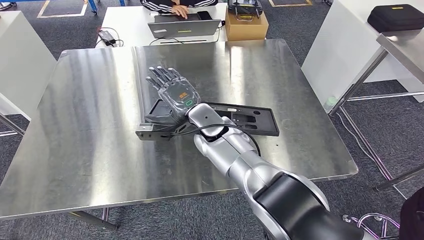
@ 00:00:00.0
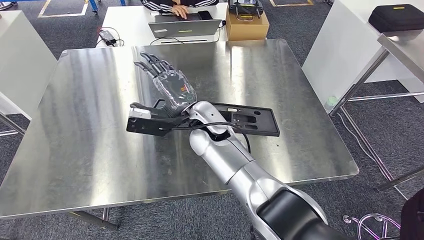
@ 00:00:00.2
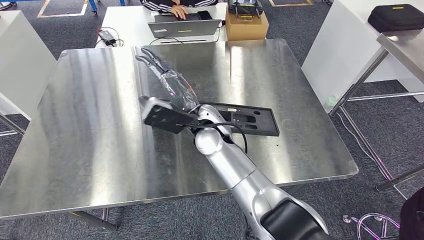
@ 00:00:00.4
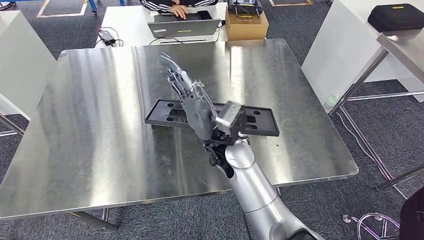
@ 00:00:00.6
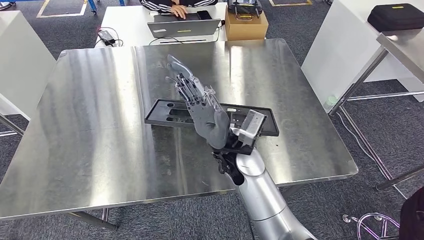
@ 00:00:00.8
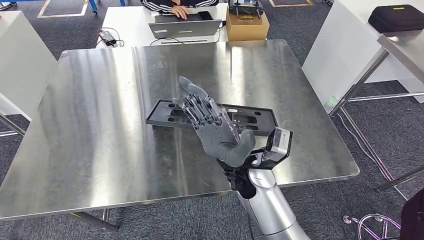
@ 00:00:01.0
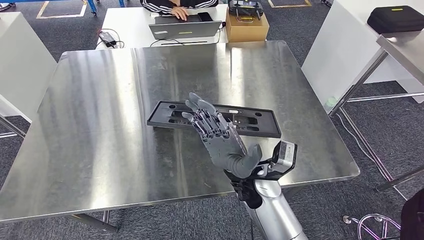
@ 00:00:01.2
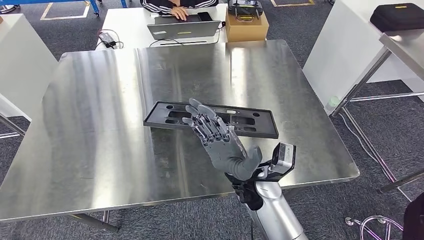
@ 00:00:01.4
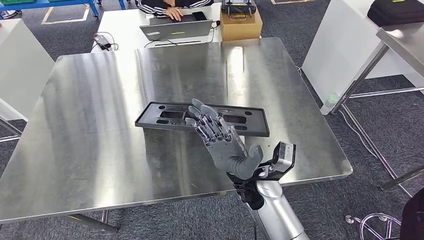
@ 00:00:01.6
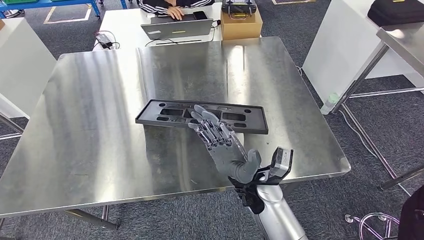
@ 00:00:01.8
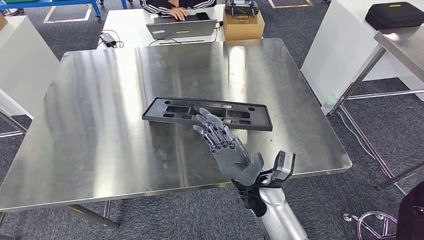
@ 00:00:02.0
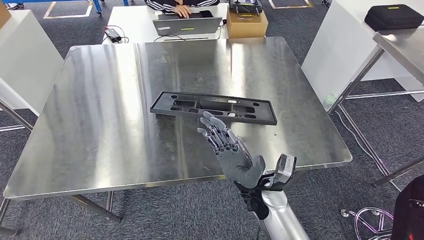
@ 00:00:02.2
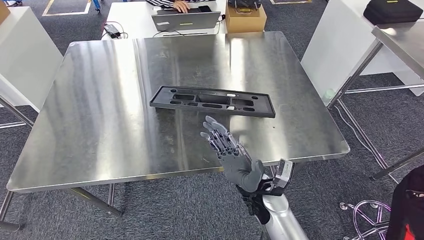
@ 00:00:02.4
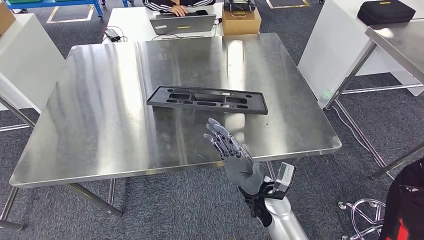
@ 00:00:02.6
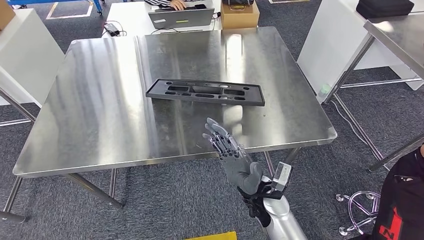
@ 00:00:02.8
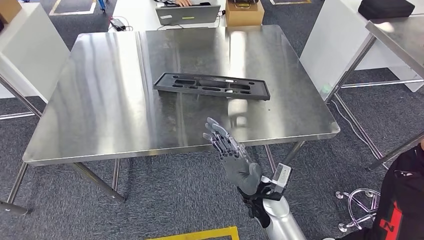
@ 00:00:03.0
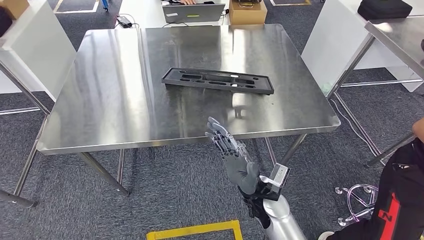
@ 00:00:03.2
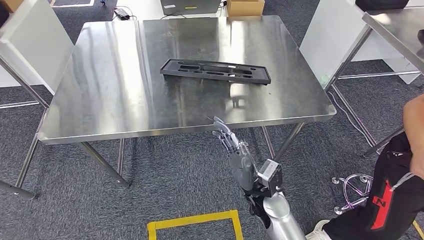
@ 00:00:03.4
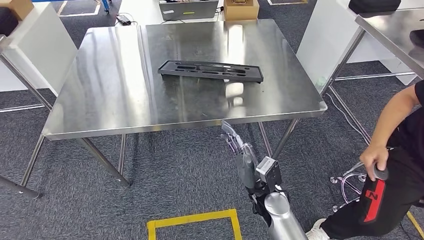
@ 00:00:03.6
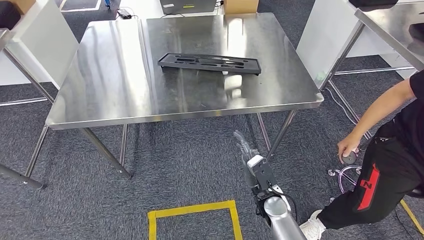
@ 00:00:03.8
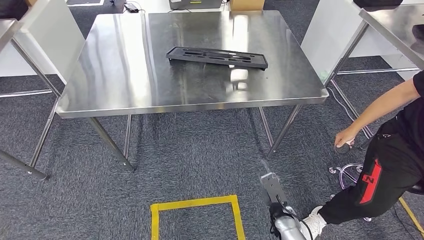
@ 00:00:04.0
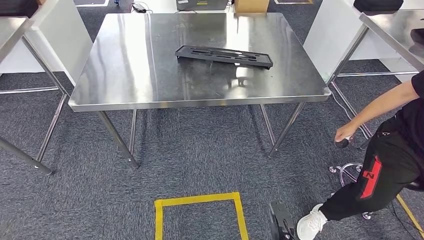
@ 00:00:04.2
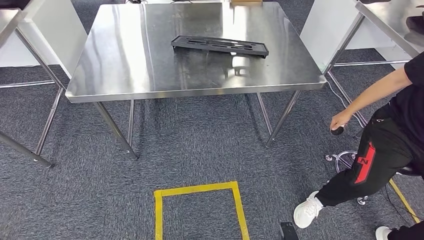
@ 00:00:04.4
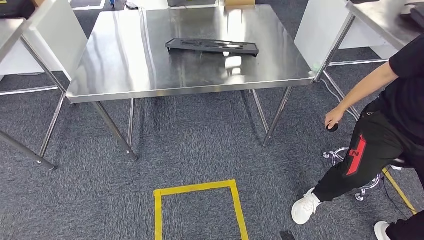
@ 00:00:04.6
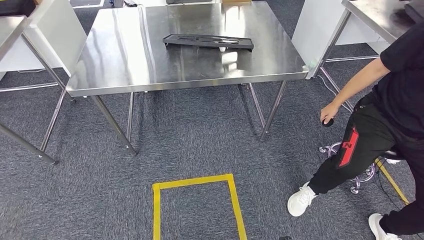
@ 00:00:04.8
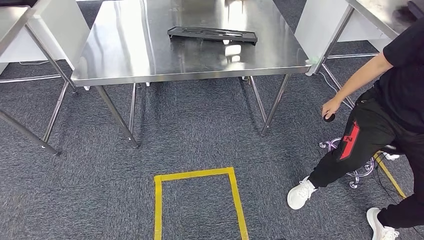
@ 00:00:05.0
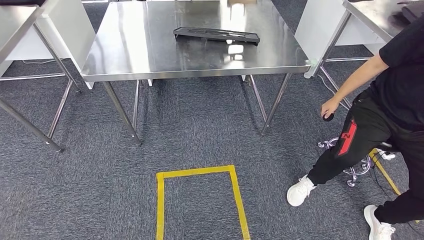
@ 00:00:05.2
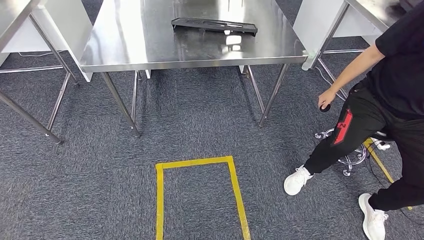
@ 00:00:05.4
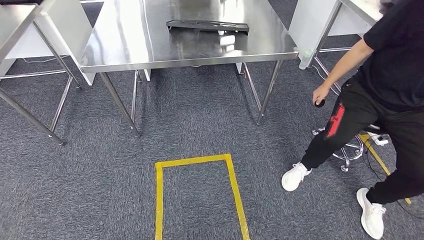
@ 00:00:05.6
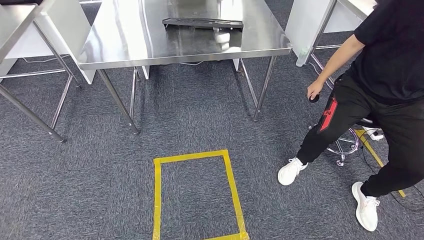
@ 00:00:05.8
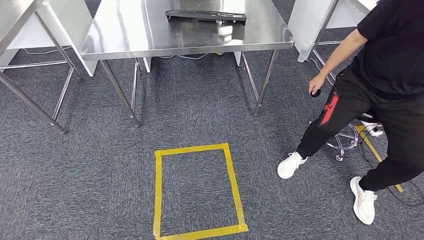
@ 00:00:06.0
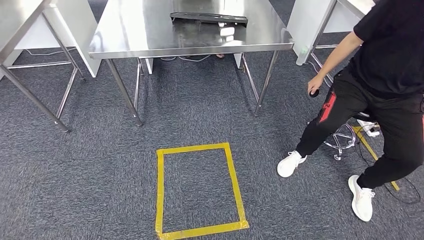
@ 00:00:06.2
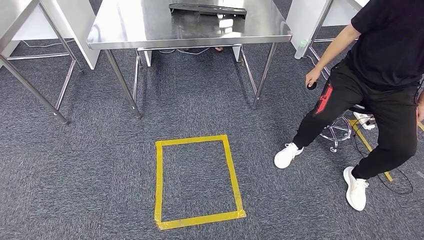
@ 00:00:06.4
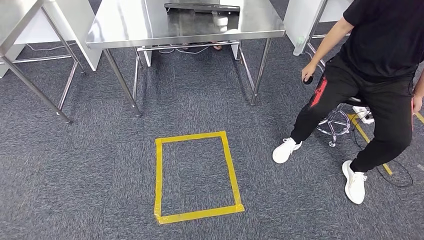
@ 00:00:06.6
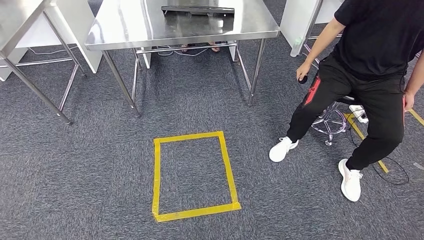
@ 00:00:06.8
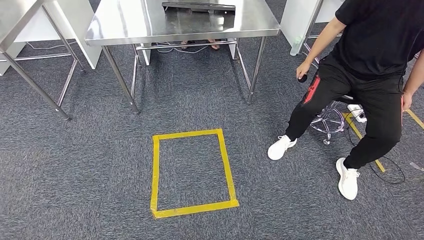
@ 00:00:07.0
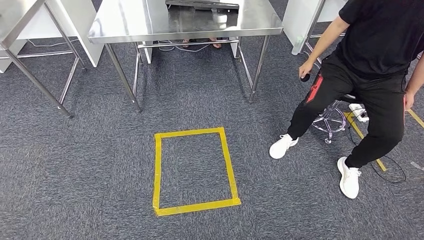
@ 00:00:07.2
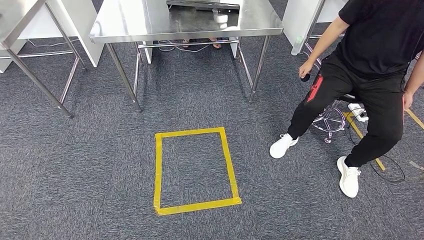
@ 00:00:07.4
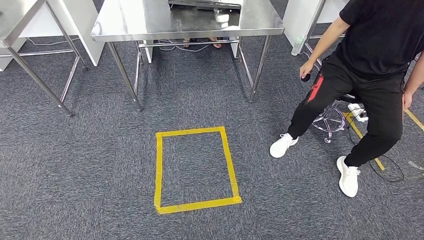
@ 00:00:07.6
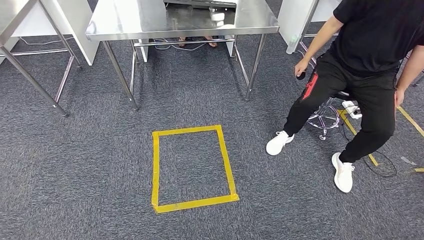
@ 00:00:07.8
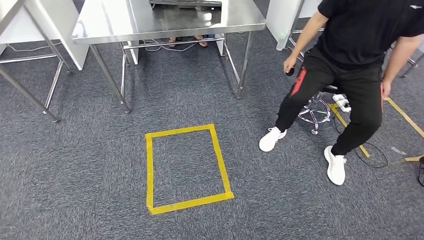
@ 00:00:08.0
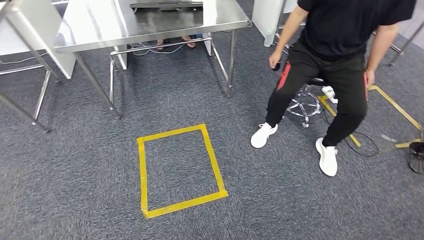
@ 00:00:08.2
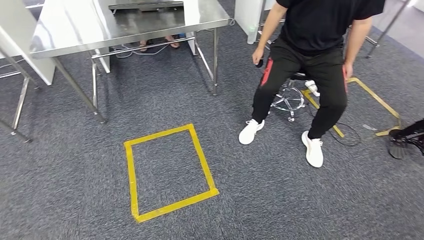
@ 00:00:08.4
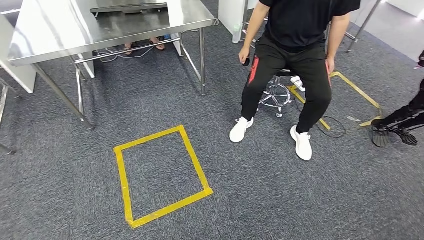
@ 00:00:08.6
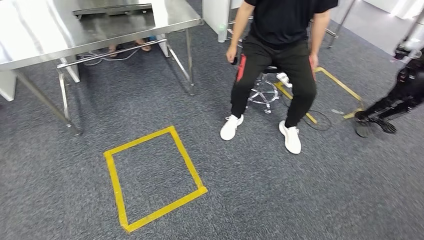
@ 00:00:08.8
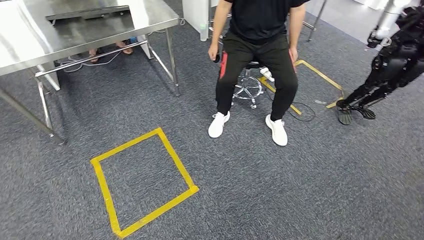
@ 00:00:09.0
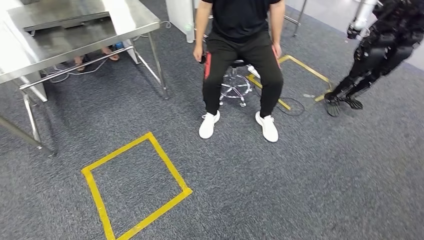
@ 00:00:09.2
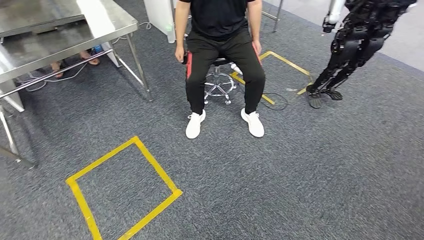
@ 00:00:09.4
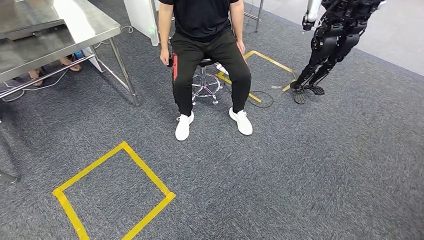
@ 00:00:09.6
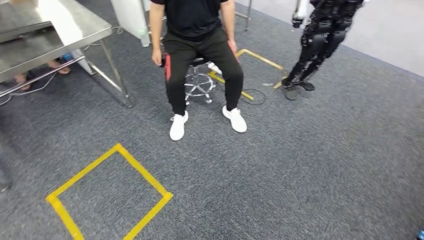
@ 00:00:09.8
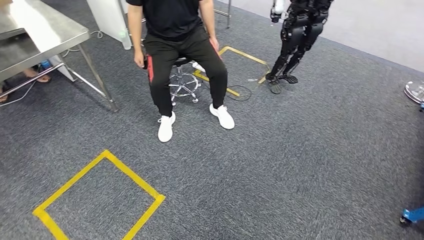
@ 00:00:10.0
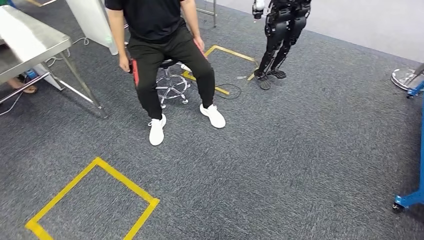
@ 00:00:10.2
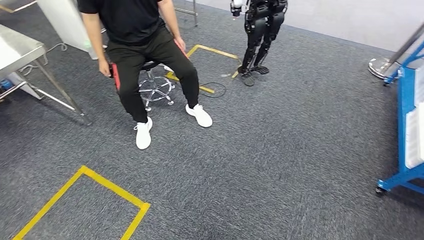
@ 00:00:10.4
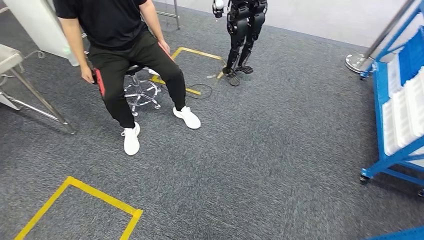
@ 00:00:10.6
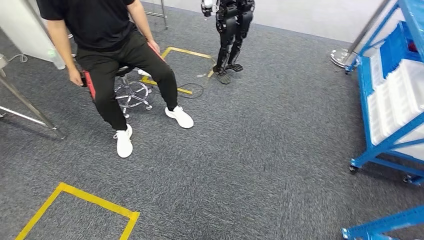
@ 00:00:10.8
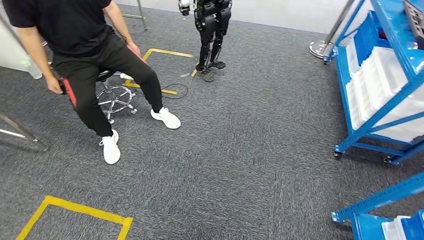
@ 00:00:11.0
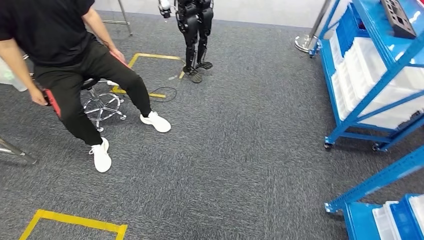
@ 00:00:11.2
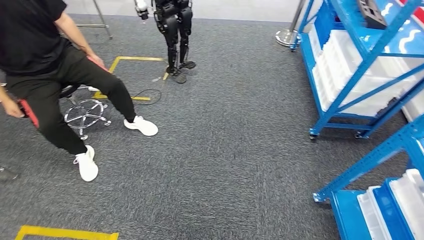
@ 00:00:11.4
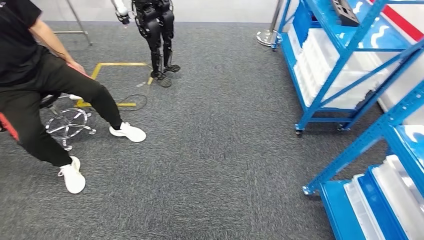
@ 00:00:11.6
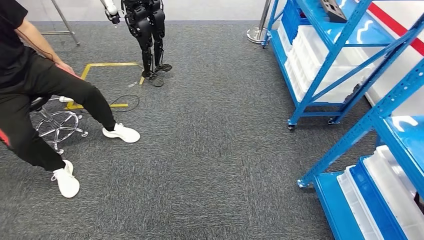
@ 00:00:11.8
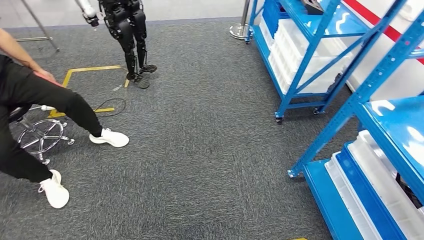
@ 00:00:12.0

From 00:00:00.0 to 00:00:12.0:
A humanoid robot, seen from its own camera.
Step, from 00:00:00.0 to 00:00:05.8: Insert the large material into the corresponding slot on the workbench.

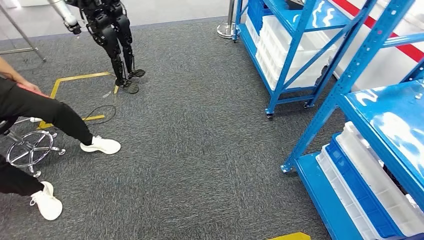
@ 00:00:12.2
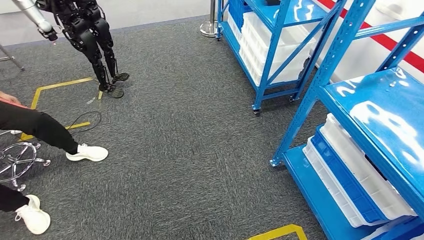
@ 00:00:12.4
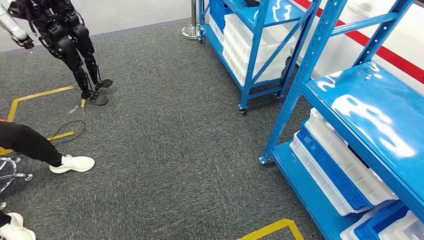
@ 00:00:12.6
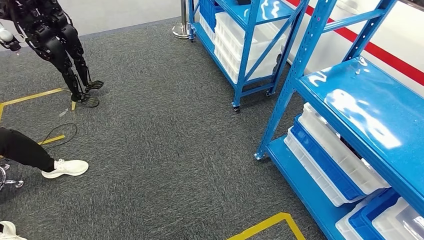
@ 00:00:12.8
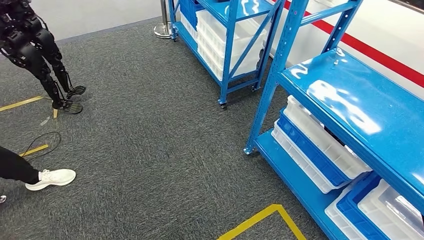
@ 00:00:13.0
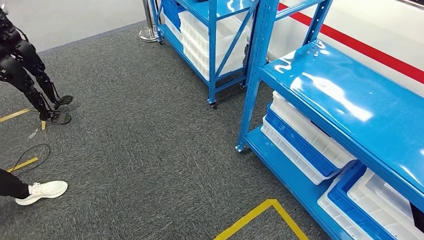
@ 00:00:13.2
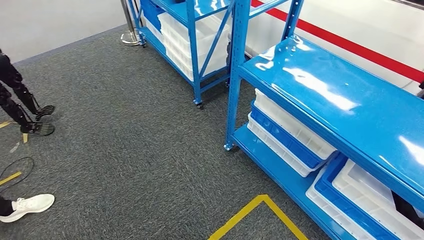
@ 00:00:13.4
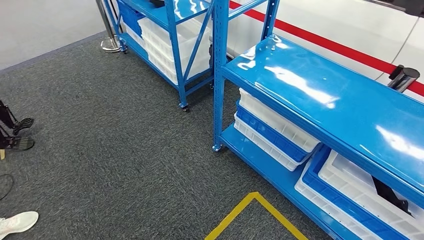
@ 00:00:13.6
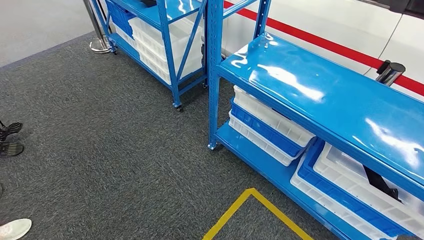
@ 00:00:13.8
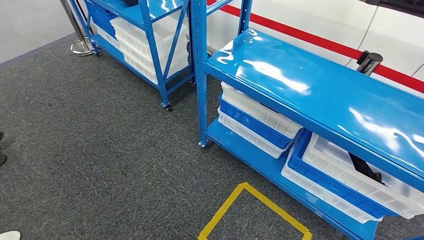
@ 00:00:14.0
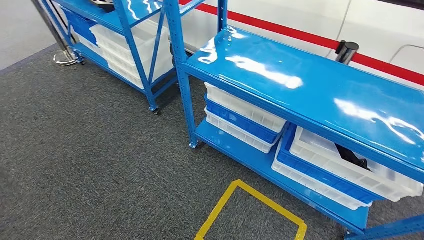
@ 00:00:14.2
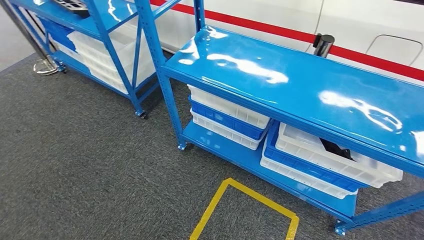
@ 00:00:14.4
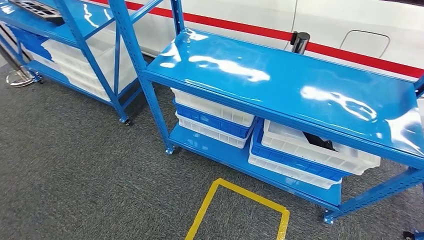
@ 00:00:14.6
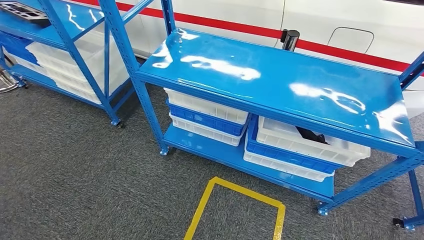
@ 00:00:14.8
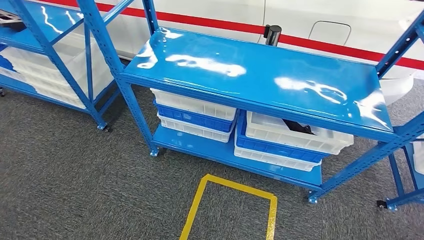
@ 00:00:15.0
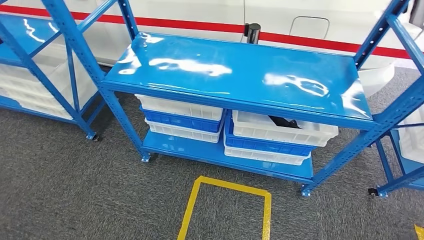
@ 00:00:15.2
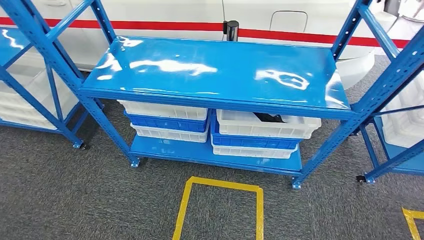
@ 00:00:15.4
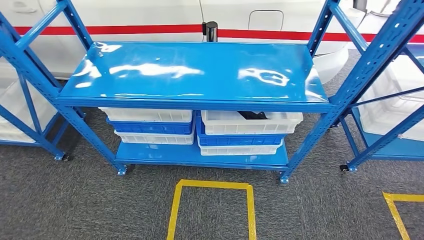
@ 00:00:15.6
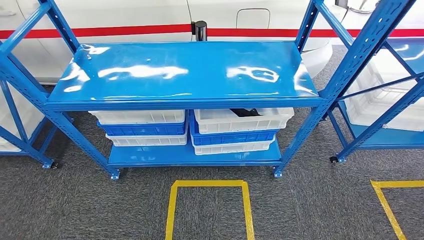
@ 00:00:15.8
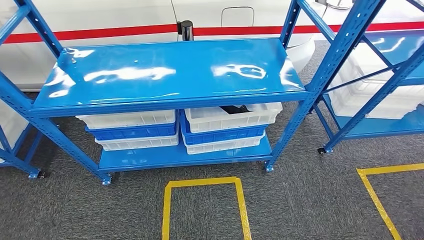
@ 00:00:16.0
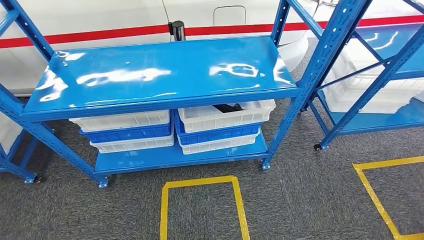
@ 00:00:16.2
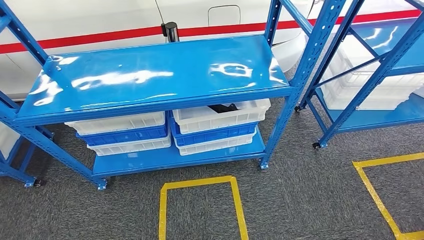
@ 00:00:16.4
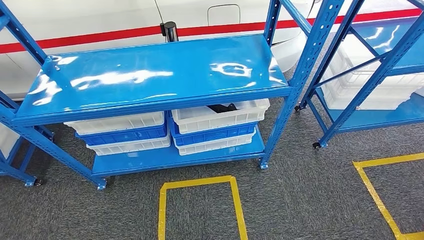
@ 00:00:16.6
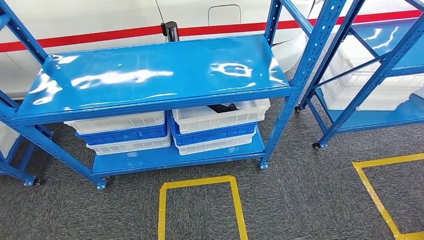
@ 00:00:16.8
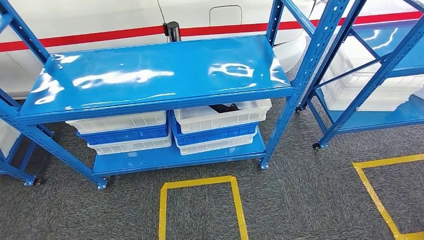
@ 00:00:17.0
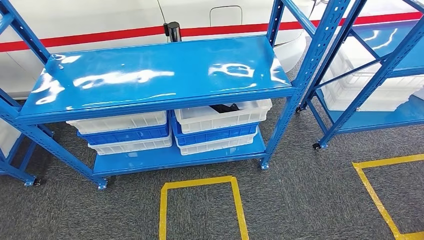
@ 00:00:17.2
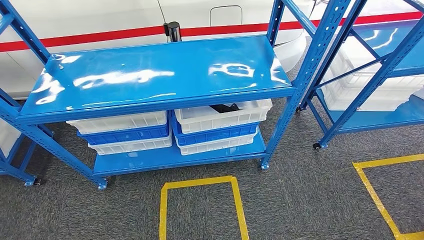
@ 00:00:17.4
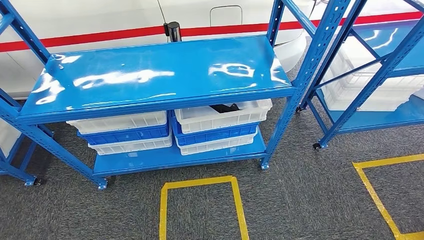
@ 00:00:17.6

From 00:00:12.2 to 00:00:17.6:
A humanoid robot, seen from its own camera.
Step, from 00:00:12.2 to 00:00:17.6: Move to the initial position of the shelf.
From 00:00:16.2 to 00:00:17.6: The hands make only small movements.
